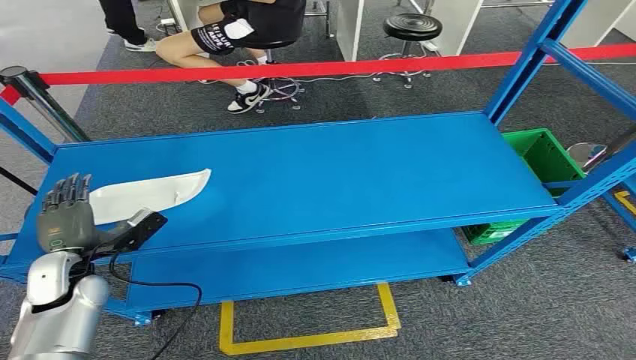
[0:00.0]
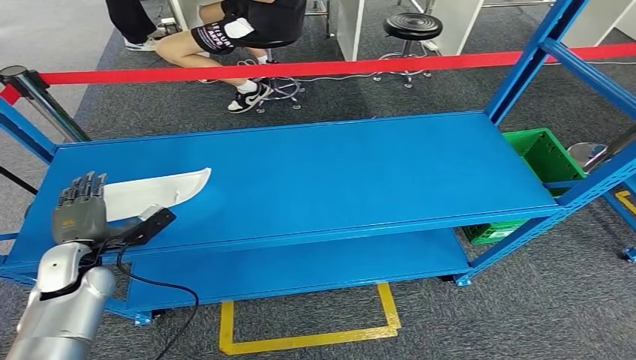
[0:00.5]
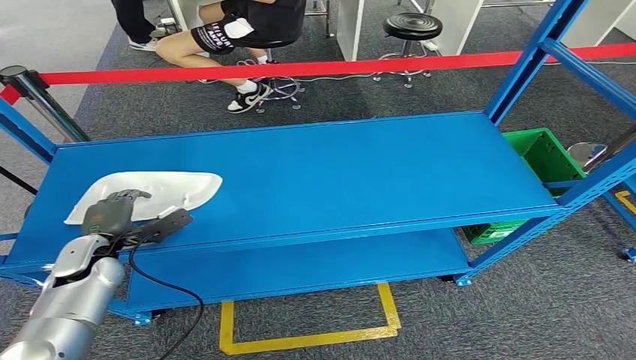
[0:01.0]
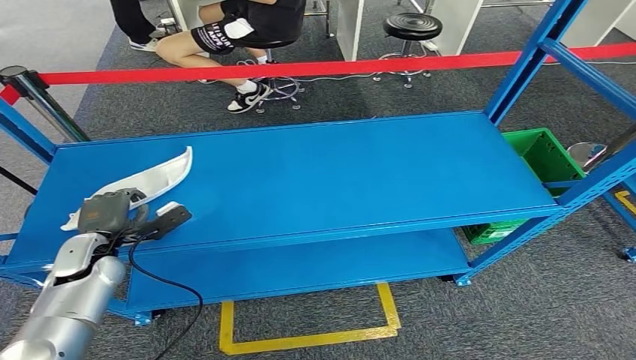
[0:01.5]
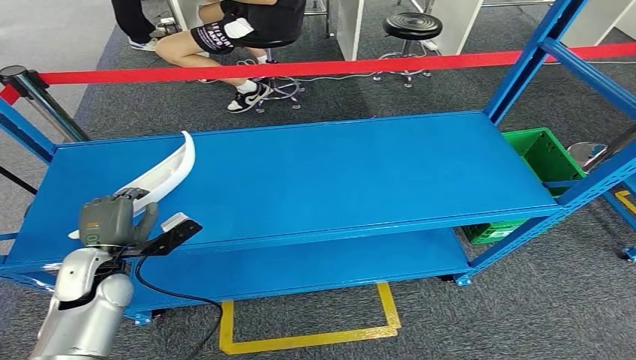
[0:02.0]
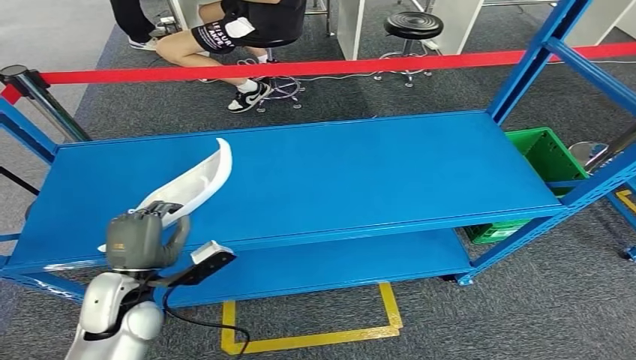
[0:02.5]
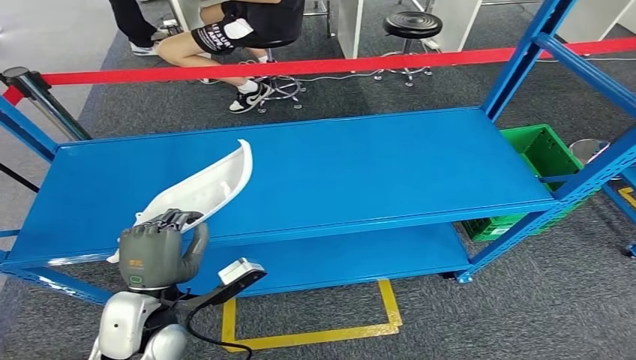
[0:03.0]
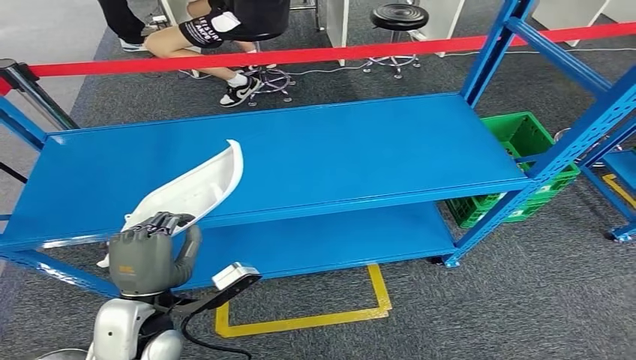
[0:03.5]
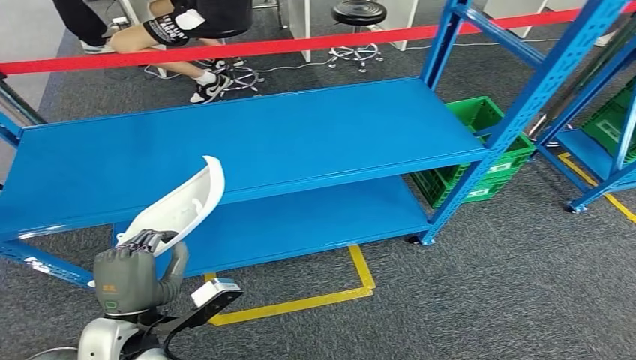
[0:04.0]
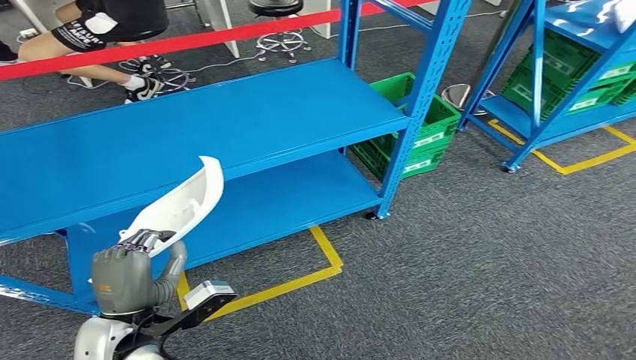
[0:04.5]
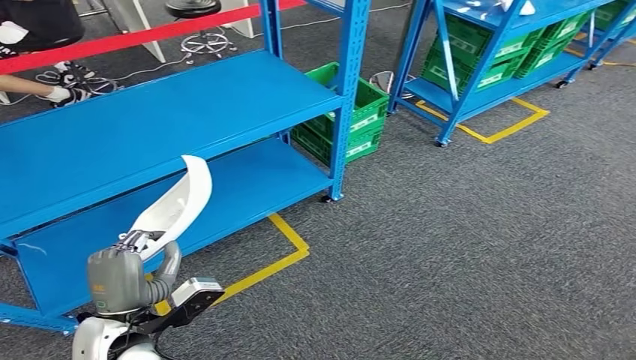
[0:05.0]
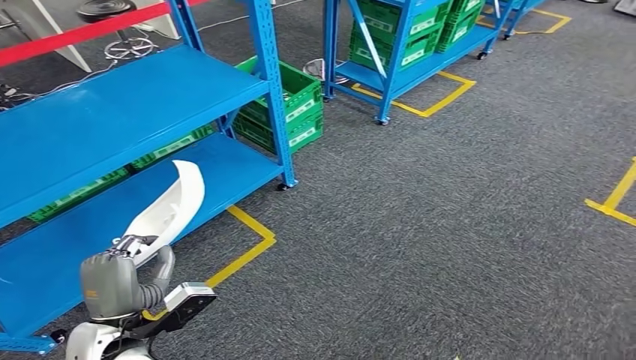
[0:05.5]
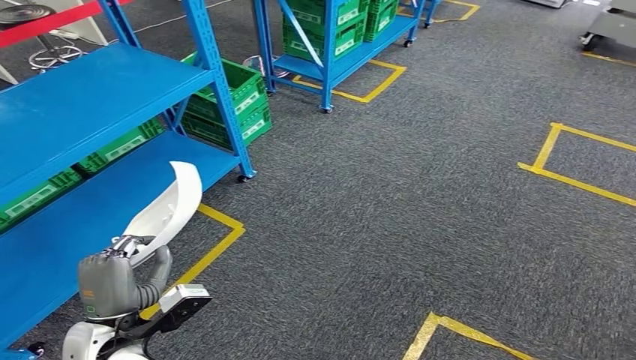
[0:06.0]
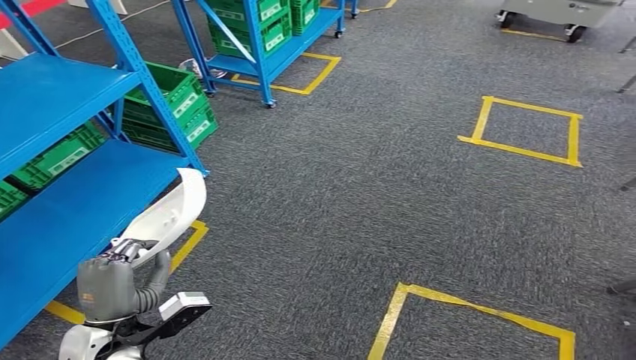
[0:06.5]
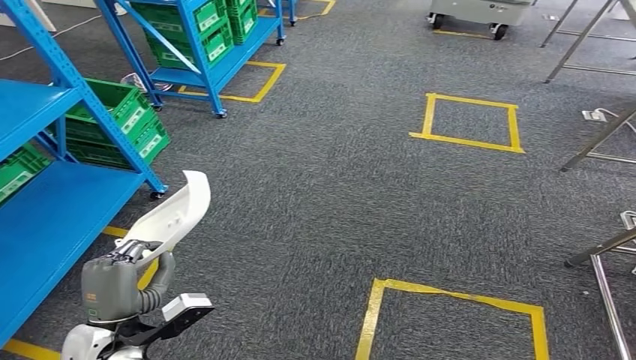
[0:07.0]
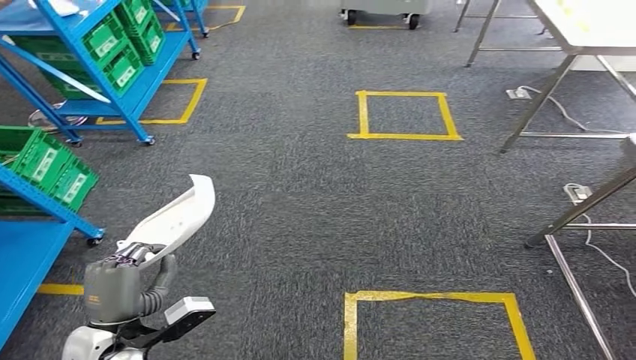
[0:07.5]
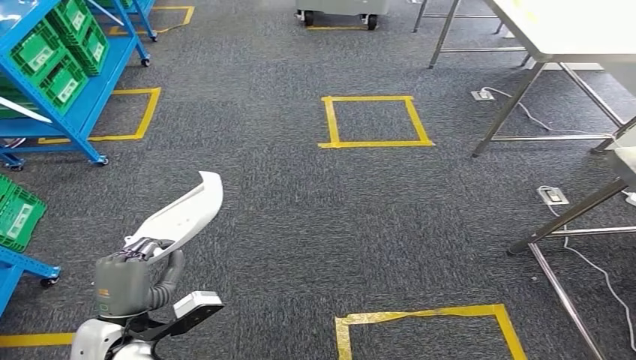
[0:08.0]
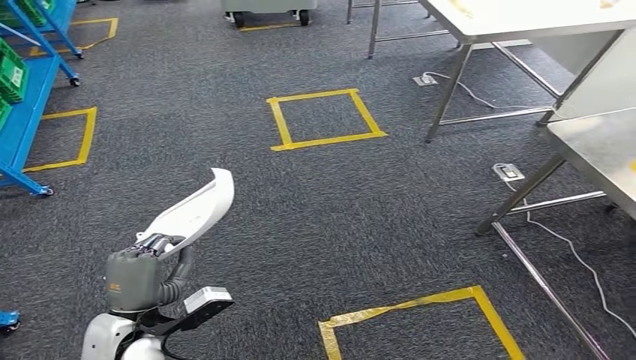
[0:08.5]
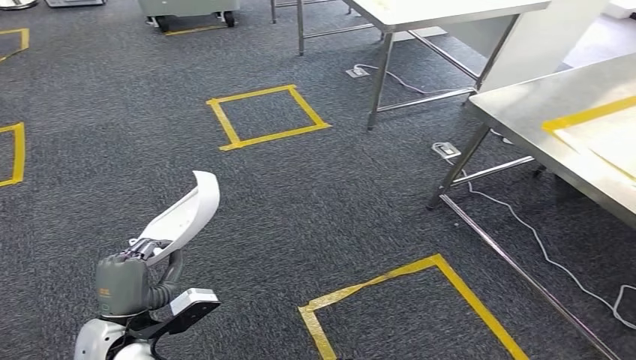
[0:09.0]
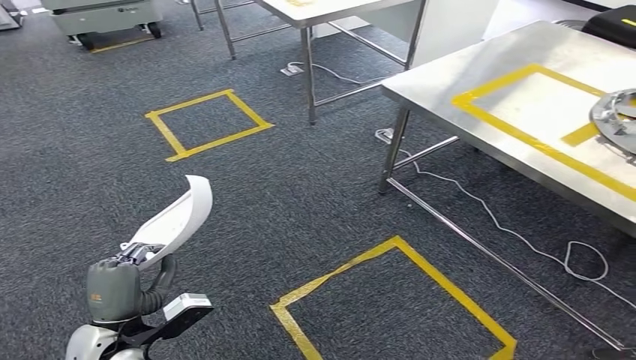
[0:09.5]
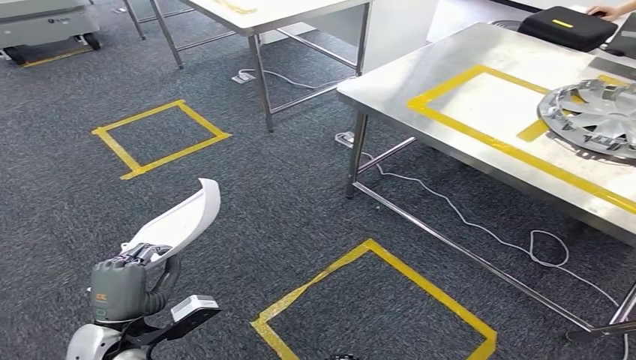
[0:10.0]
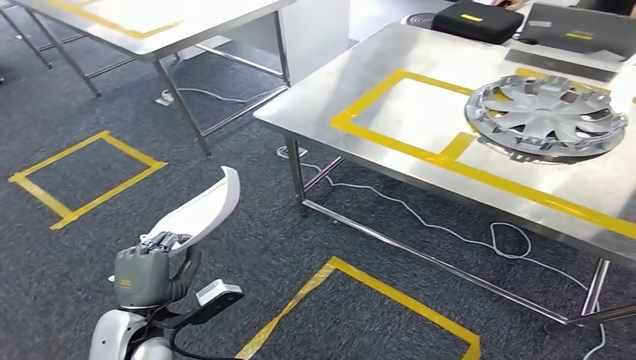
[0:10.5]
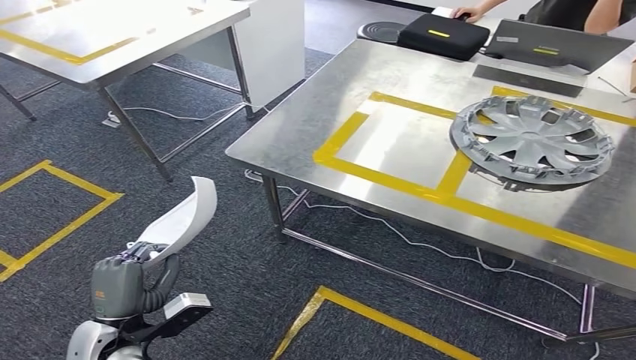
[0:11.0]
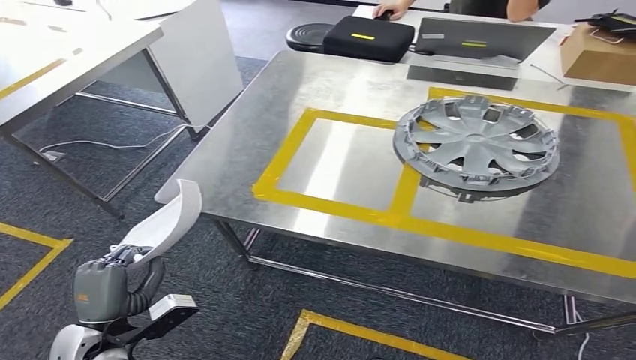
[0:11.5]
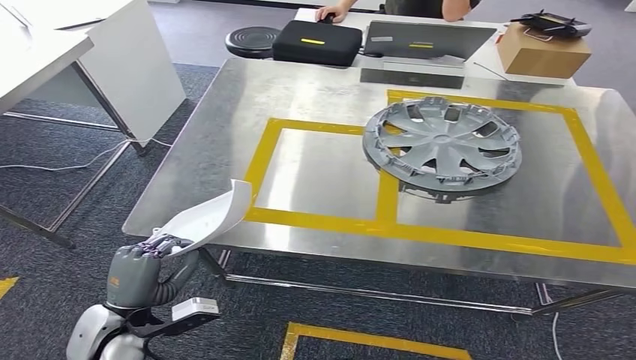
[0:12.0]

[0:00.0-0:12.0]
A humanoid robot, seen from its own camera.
Step, 0:00.0 to 0:03.5: Pick up the small component from the shelf.

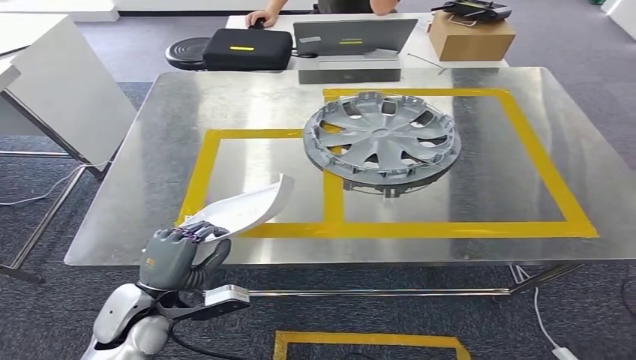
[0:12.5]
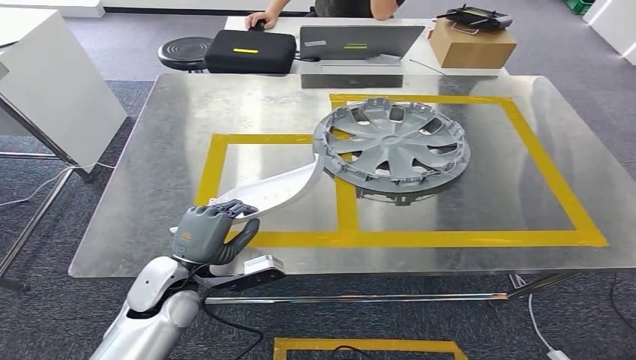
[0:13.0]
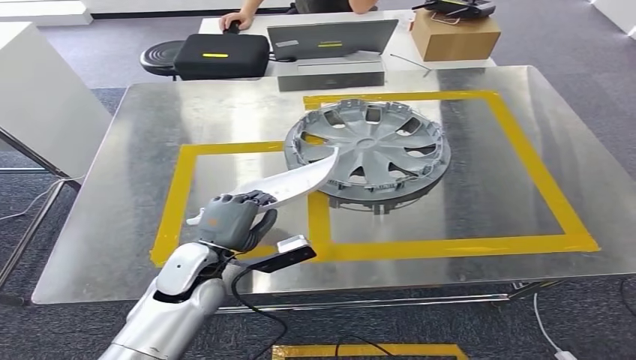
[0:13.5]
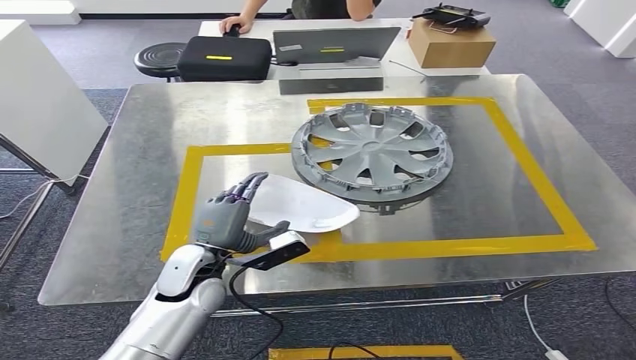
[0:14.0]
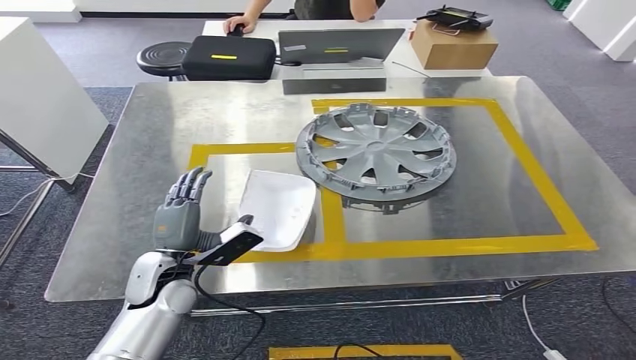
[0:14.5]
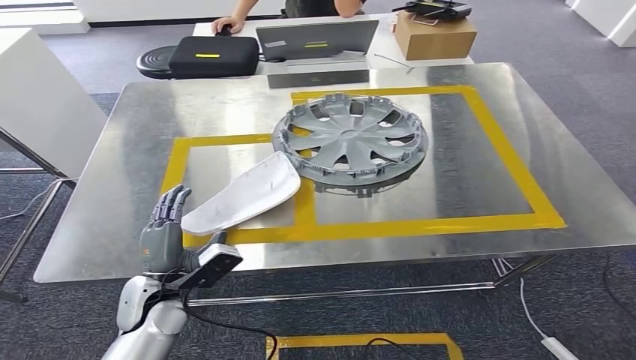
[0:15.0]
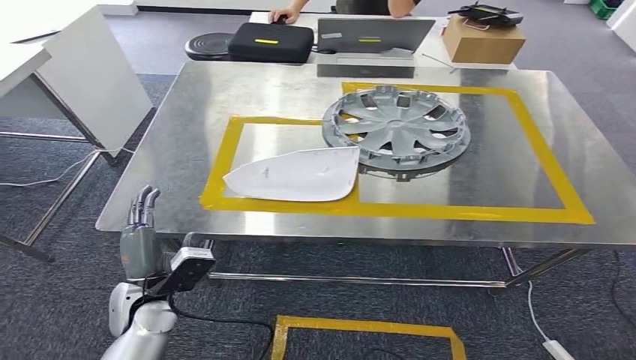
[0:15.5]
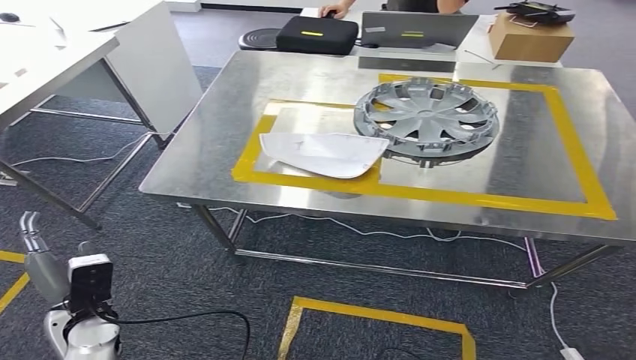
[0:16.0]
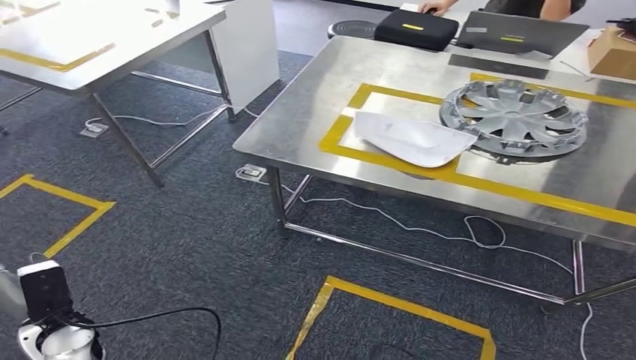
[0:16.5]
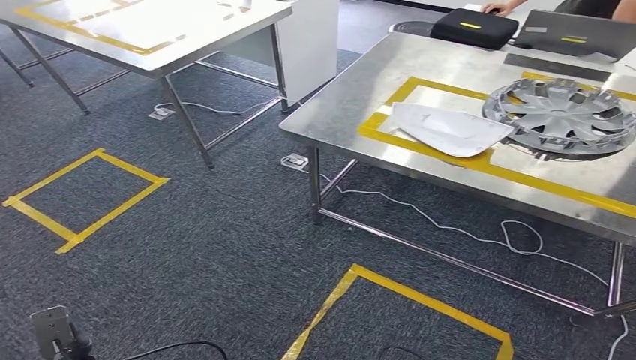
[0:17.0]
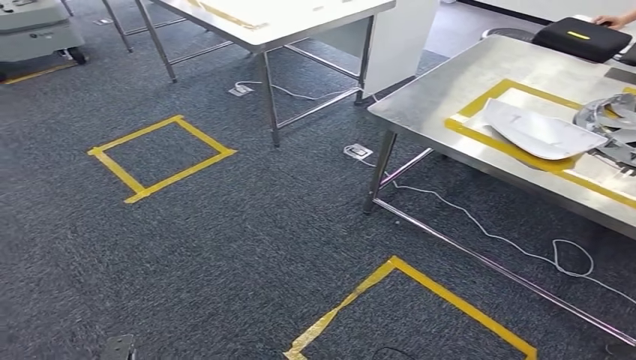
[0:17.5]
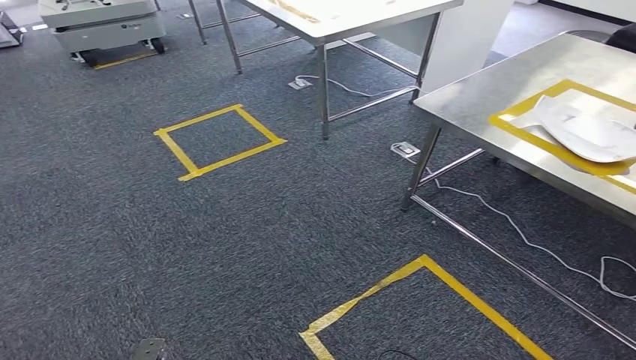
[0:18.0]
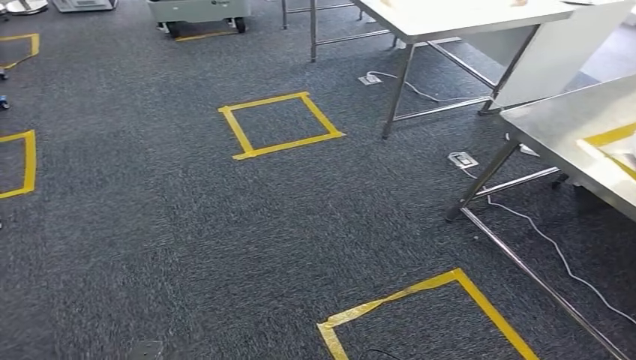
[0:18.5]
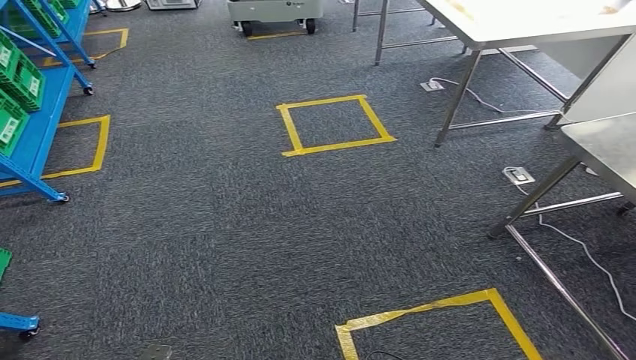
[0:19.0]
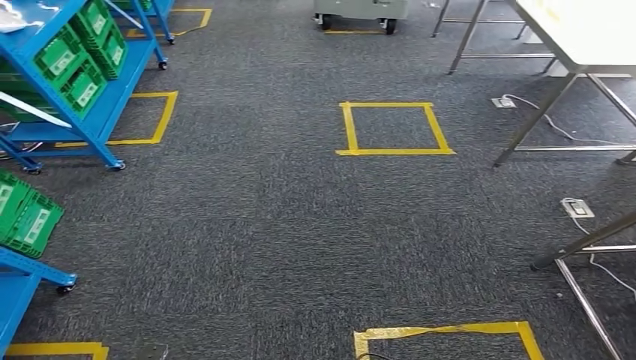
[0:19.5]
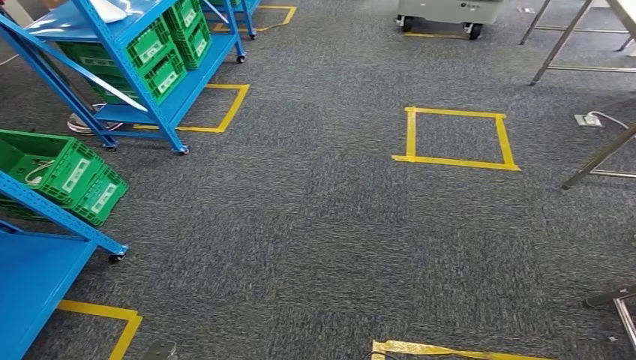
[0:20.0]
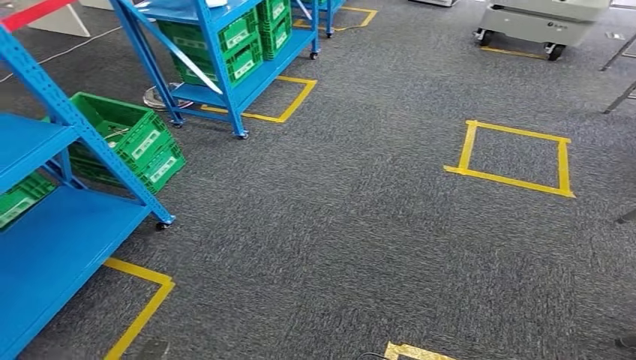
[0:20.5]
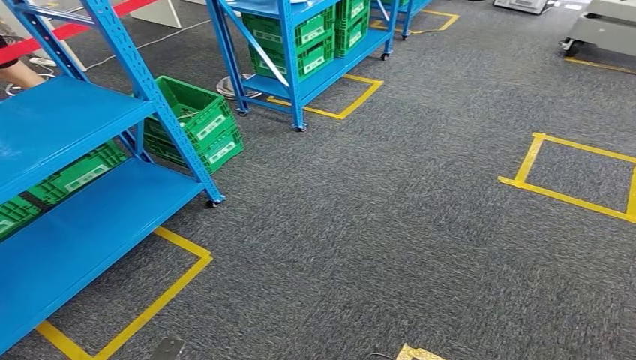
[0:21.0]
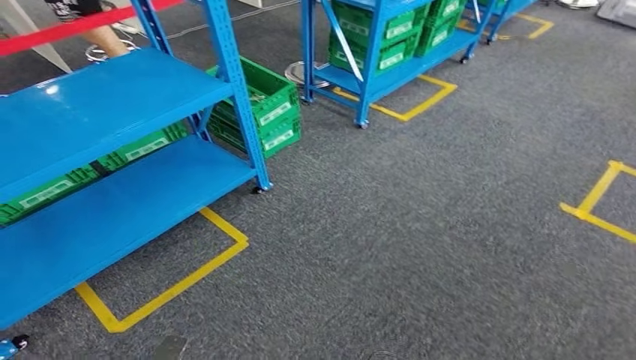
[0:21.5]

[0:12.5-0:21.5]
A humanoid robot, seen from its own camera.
Step, 0:12.5 to 0:15.5: Insert the small component into the corresponding slot on the workbench.
